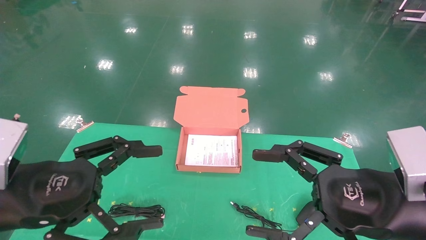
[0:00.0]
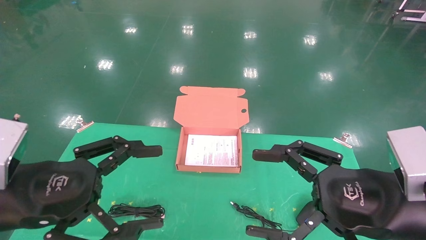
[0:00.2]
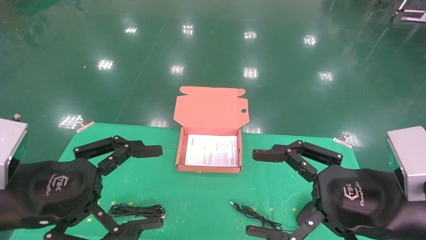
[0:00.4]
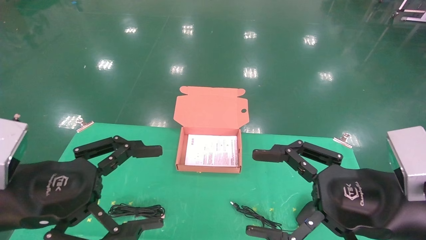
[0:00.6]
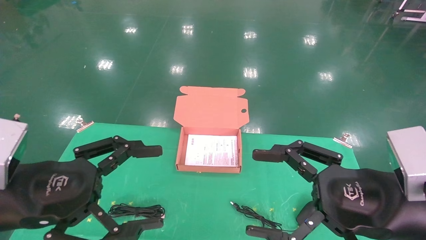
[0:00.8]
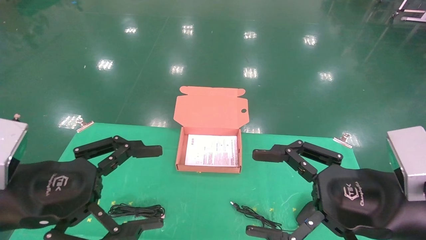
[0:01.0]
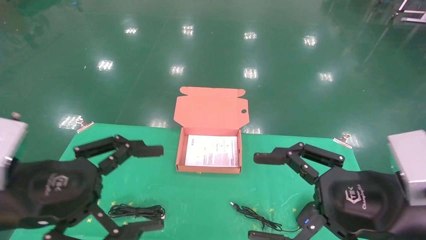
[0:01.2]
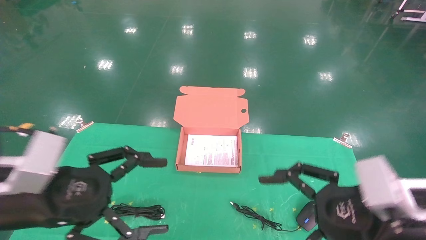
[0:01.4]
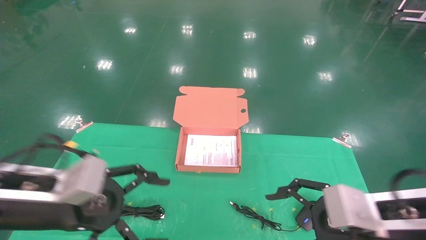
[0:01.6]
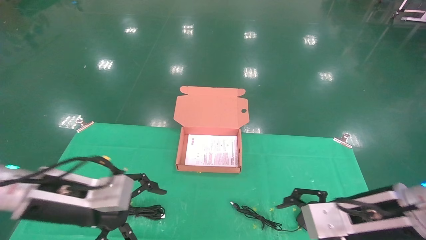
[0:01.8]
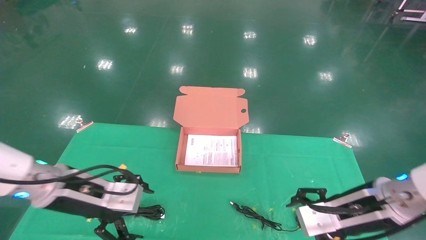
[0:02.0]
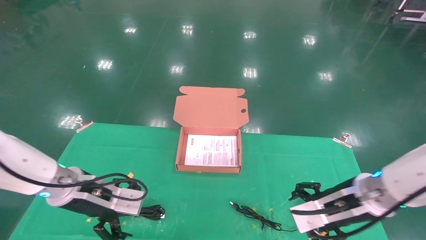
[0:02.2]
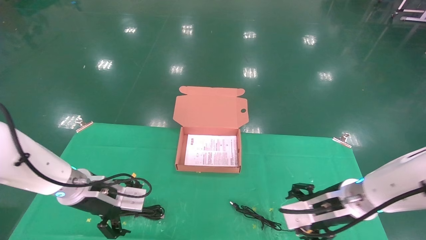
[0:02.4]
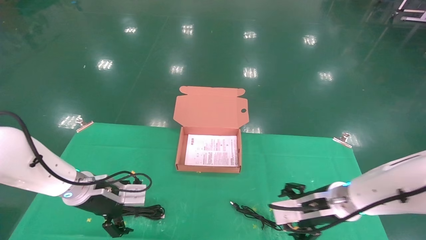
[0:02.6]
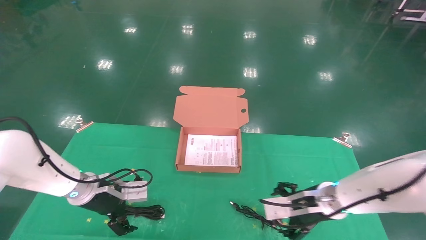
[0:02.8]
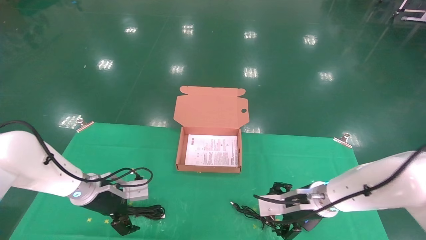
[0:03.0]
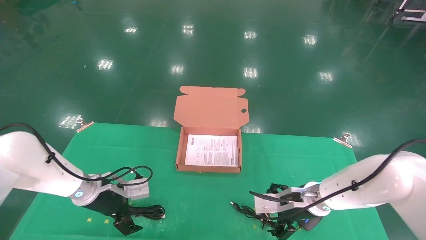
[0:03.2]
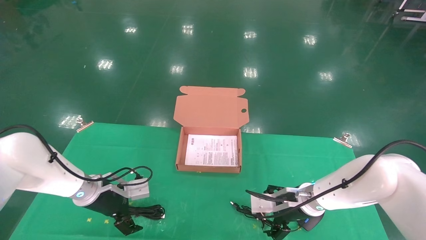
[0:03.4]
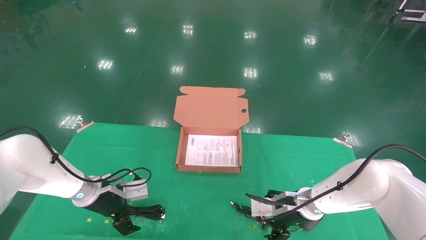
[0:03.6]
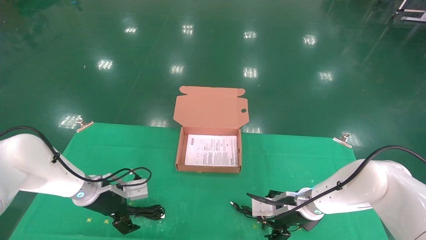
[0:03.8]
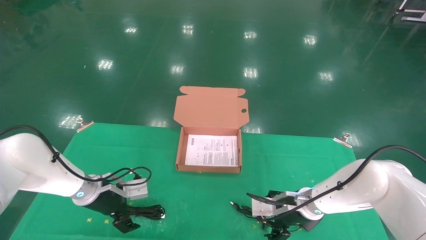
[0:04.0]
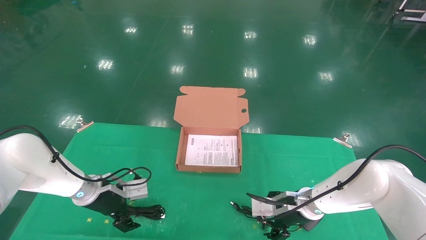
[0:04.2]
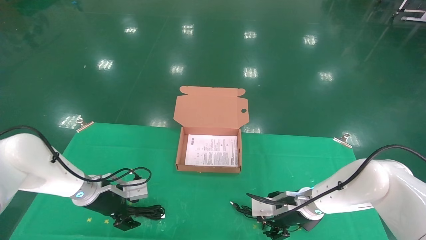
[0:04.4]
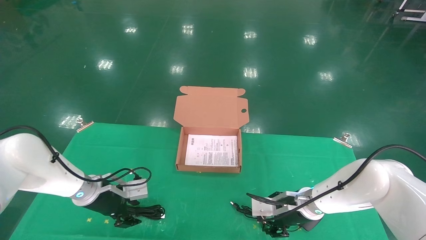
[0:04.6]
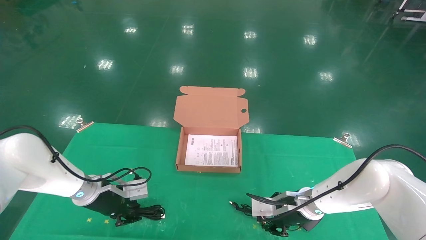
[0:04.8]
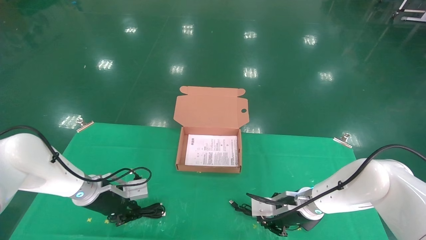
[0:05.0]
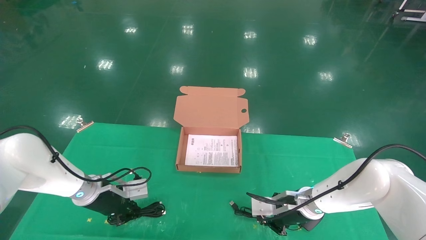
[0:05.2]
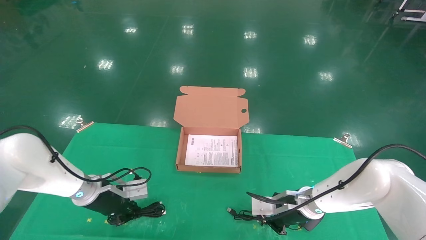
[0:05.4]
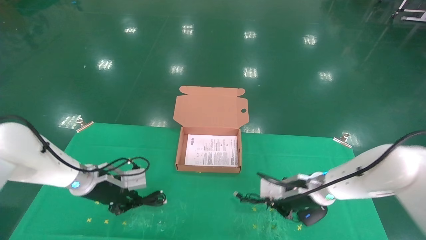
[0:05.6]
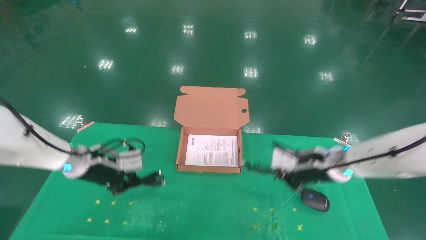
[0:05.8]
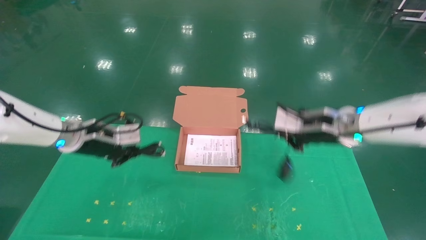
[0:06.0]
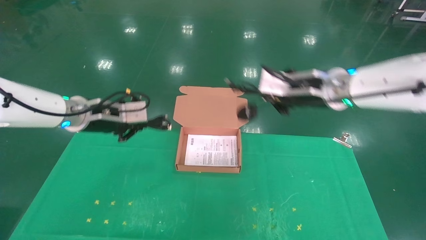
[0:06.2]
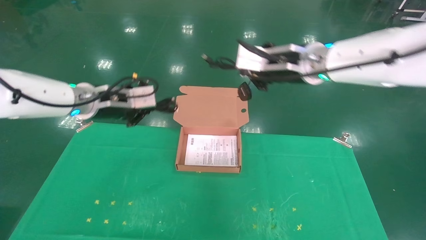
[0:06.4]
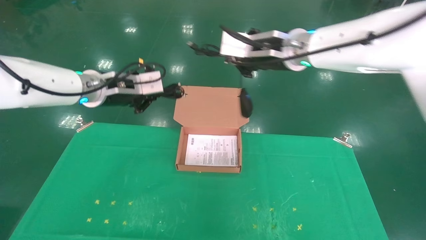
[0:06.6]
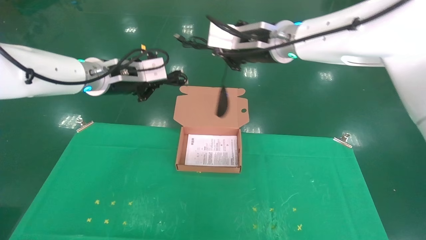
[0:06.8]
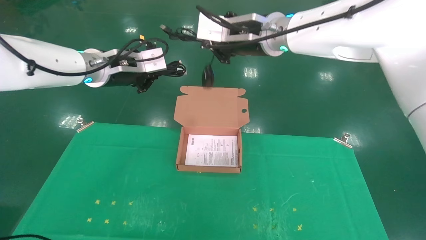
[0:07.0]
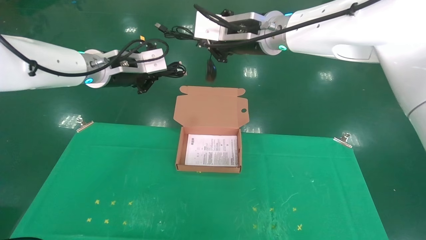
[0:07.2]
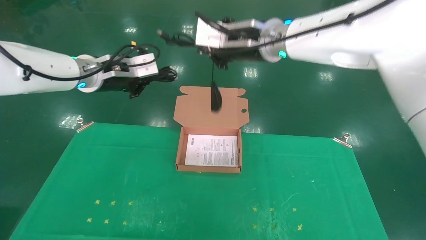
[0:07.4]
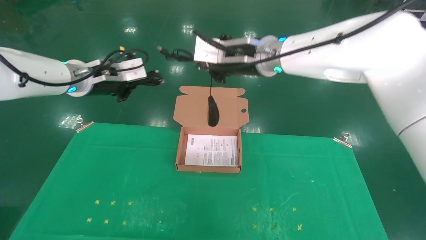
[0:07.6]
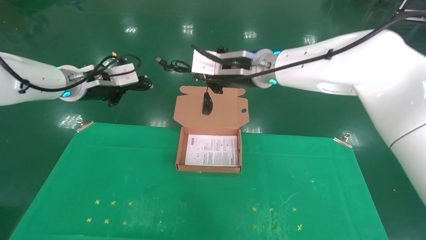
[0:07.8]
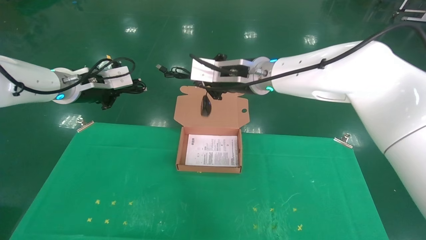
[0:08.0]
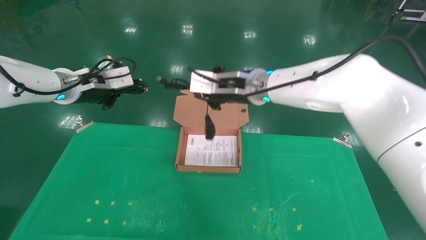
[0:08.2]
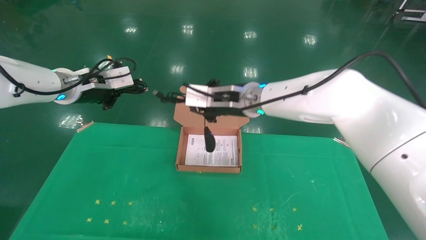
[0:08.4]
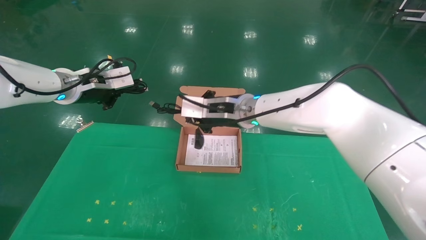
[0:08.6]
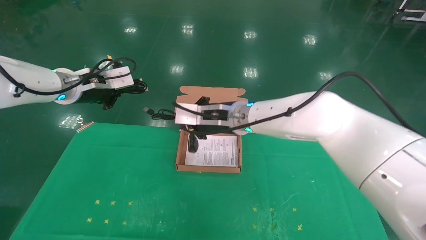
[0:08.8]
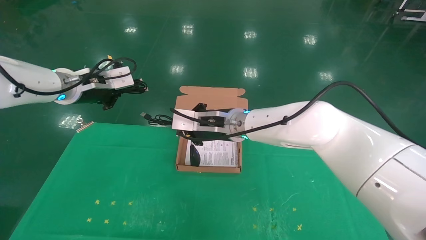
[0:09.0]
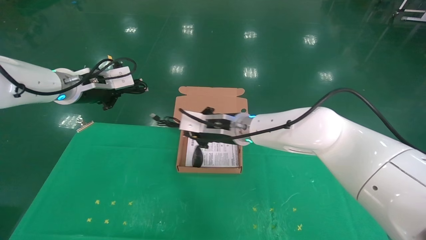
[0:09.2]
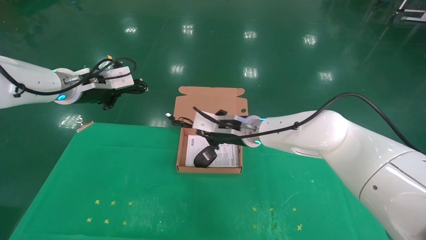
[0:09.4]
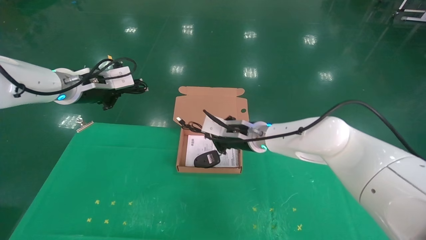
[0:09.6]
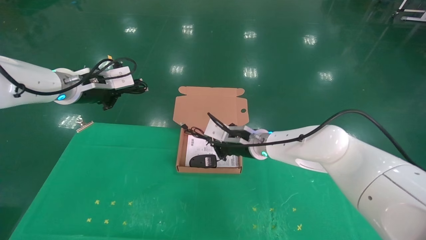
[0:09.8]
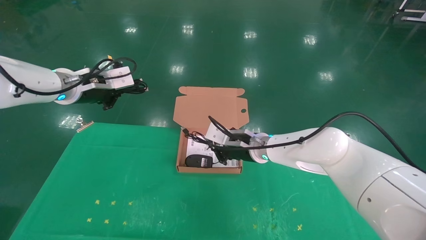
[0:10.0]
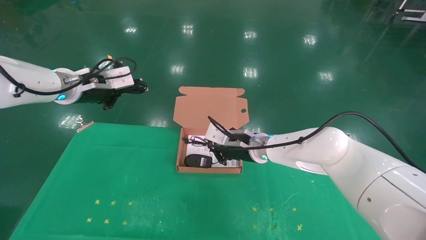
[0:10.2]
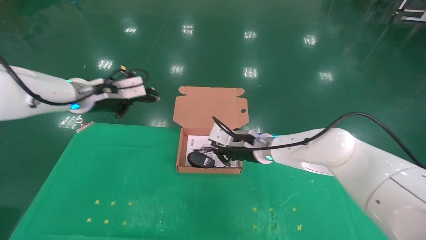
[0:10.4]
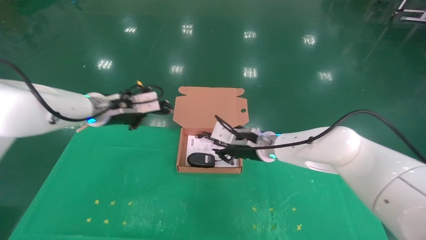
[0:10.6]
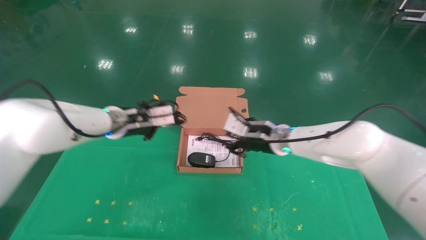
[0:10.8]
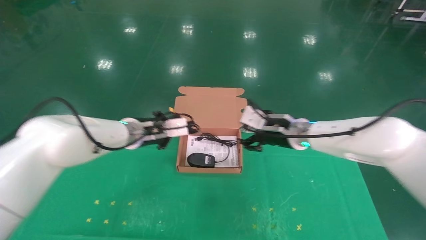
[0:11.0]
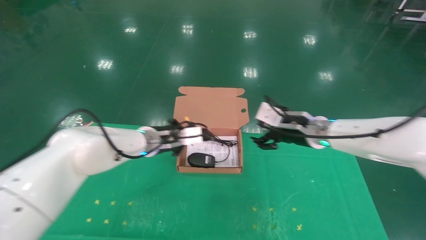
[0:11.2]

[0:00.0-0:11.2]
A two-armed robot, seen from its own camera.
Task of the whole recording: grasp data cable left put into box grasp mouse right put into box.
Step, 0:01.4 to 0:06.6: Grab and pick up both the mouse and power cord from the accessory packaging area at the same time.
0:00.0 to 0:01.6: The left gripper moves forward, roughly 5 cm. Meanwhile the right gripper shifts by roughly 5 cm.
0:01.6 to 0:03.2: The grippers both shift forward and downward by roughly 20 cm.
0:03.2 to 0:04.8: The right gripper closes its fingers, while the left gripper closes.
0:04.8 to 0:06.4: Both grippers move upward, about 25 cm. The right gripper closes up.
0:06.4 to 0:08.0: The left gripper ends up some 5 cm from where it was; the right gripper moves to the left, approximately 10 cm.
0:08.0 to 0:09.6: The right gripper moves downward, some 15 cm.
0:09.6 to 0:11.2: The right gripper shifts approximately 15 cm to the right, and opens, while the left gripper shifts about 20 cm to the right and downward.

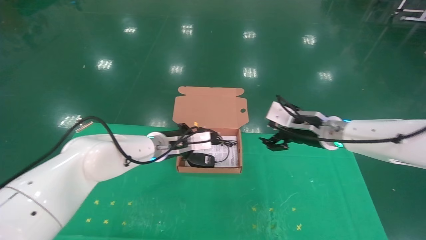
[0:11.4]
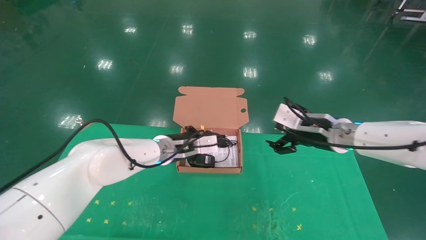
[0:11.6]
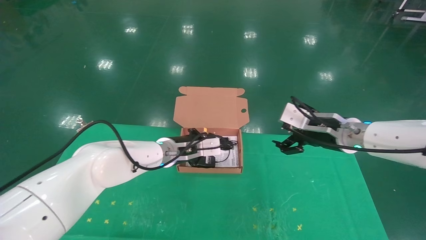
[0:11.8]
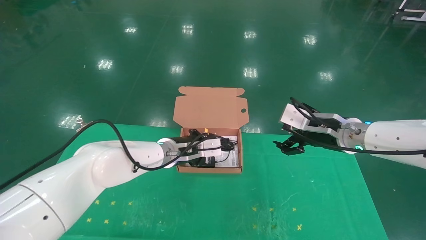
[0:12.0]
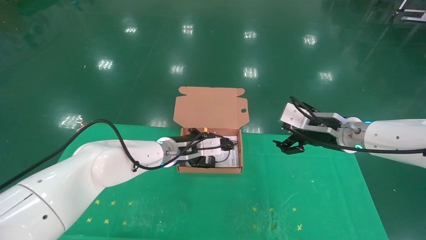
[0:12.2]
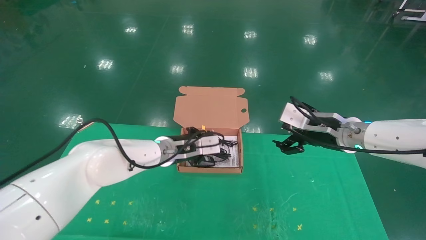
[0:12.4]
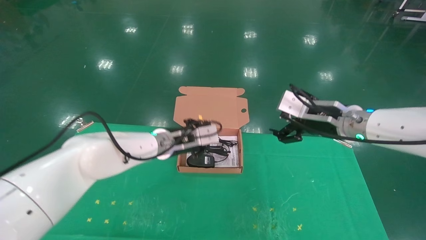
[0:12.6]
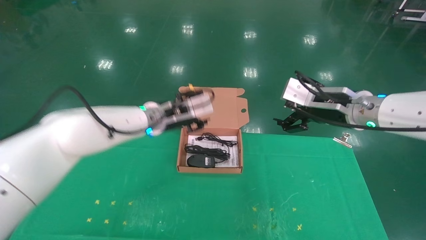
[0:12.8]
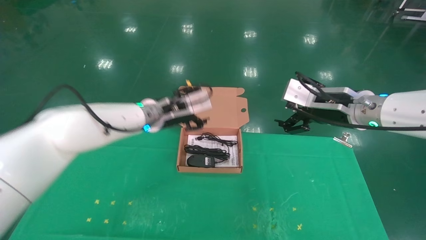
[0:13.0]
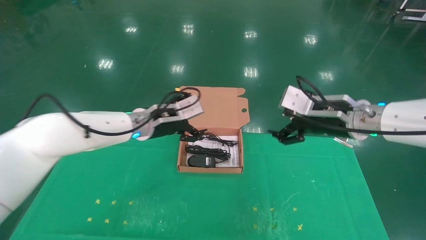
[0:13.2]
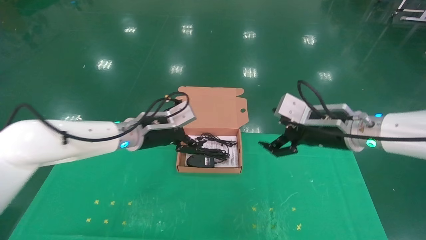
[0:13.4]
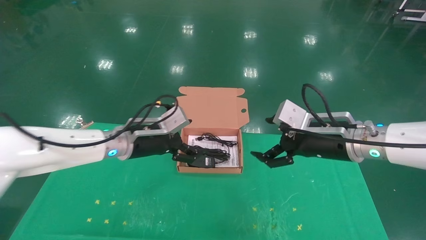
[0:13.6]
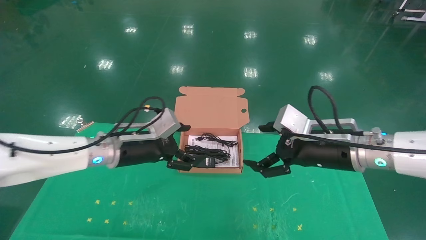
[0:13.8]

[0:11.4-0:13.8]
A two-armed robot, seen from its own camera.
Task of the whole recording: grasp data cable left put into box grasp mouse right put into box.
0:11.4 to 0:12.6: The right gripper ends up about 5 cm from where it was.
0:12.6 to 0:13.8: The left gripper moves to the left and backward, roughly 10 cm, and opens. Meanwhile the right gripper heads backward, covering about 5 cm.
